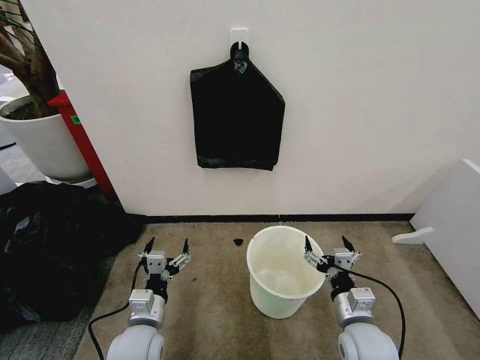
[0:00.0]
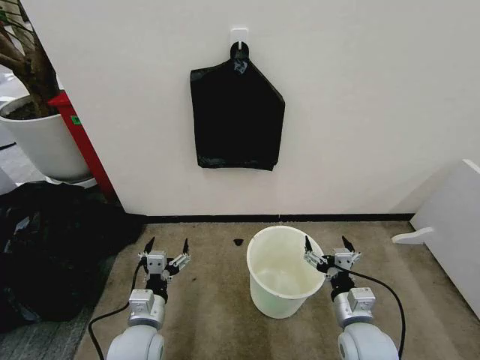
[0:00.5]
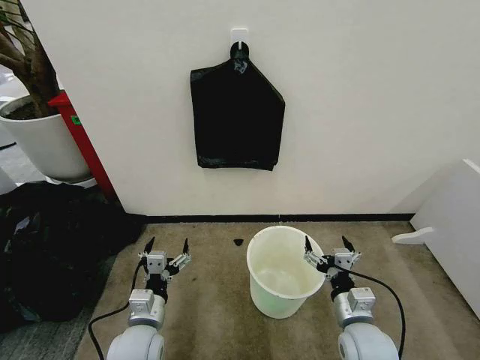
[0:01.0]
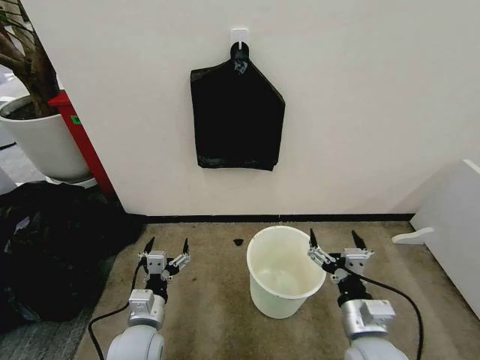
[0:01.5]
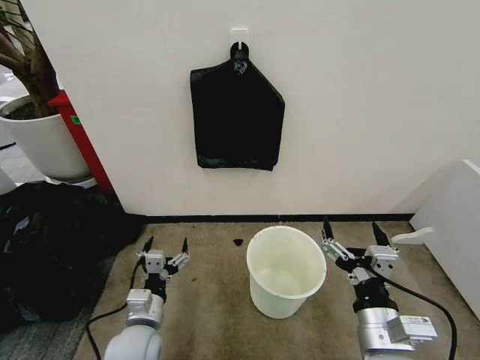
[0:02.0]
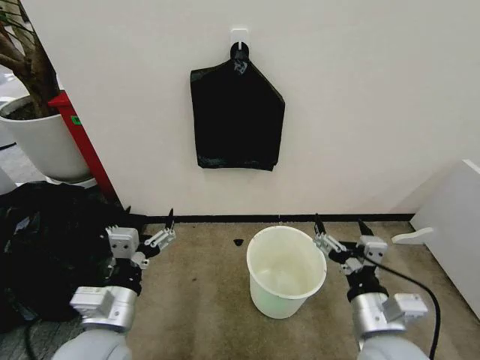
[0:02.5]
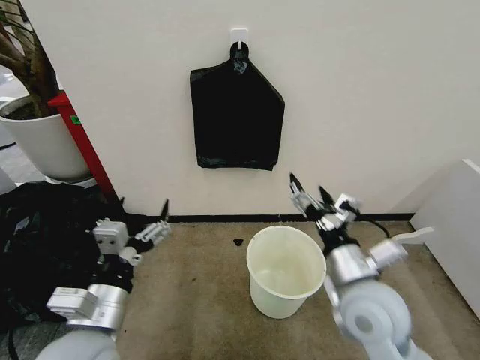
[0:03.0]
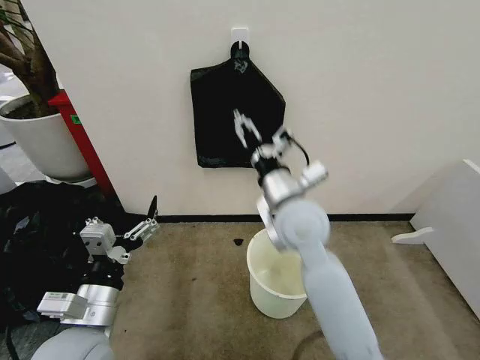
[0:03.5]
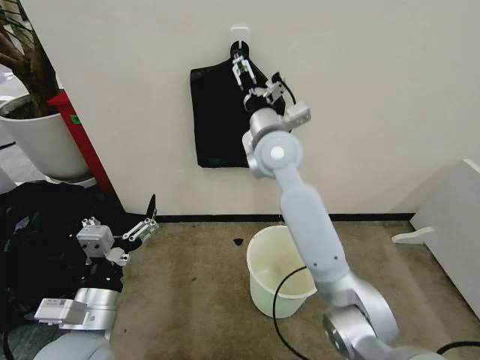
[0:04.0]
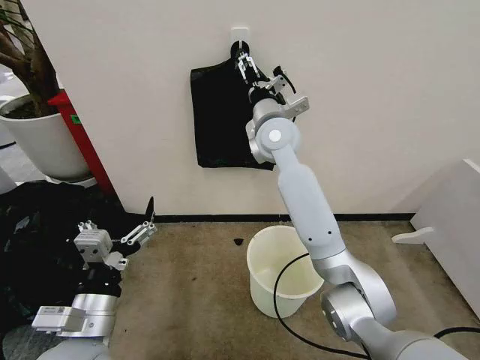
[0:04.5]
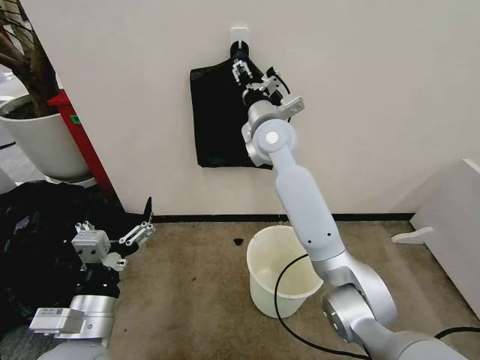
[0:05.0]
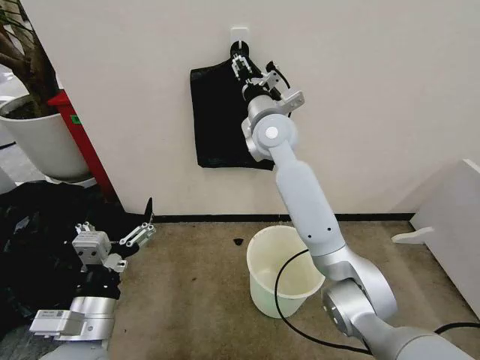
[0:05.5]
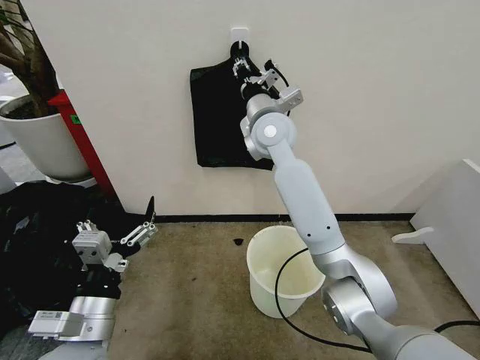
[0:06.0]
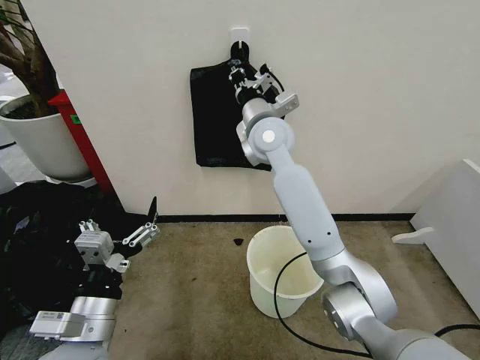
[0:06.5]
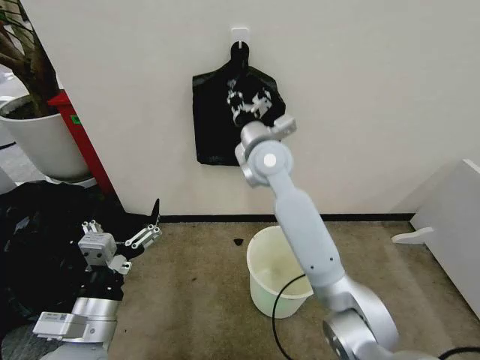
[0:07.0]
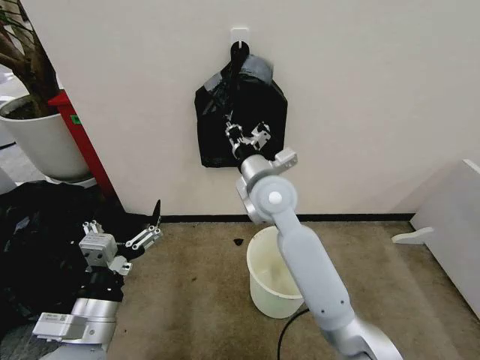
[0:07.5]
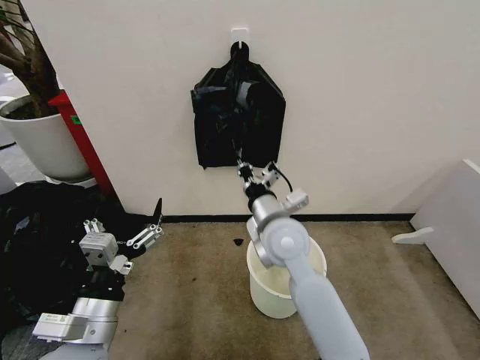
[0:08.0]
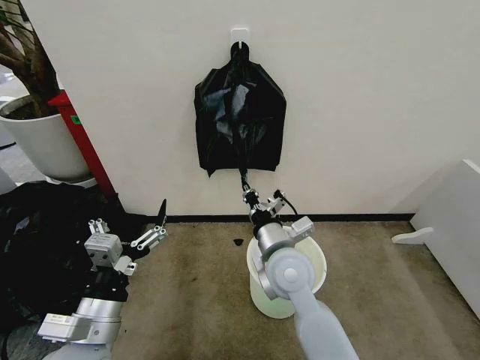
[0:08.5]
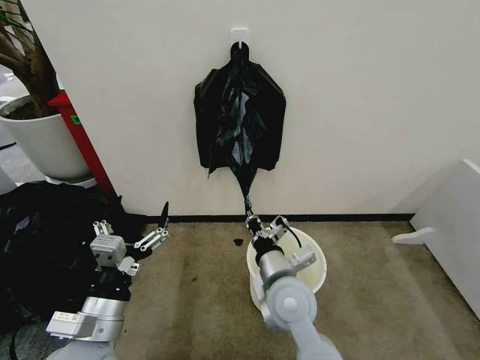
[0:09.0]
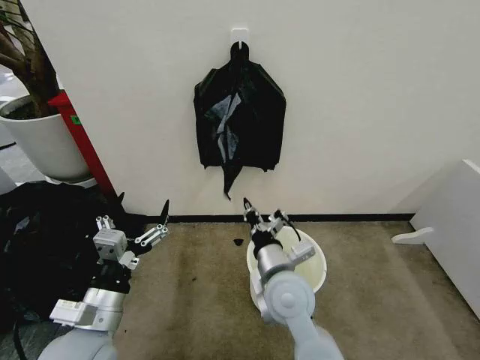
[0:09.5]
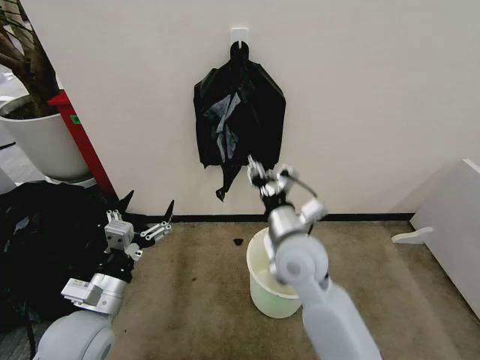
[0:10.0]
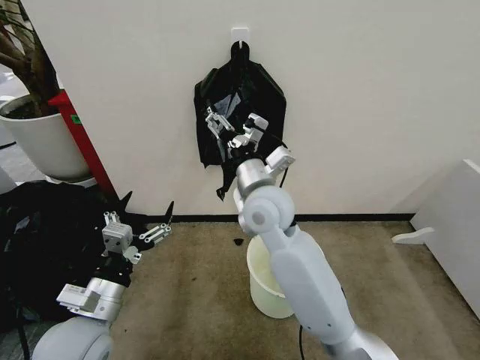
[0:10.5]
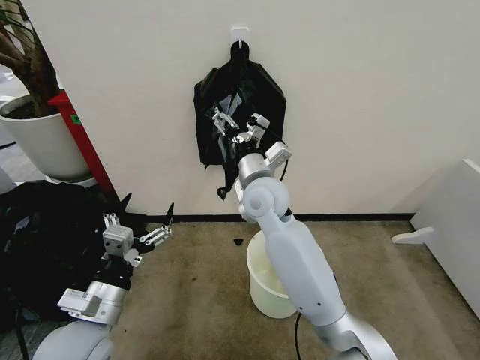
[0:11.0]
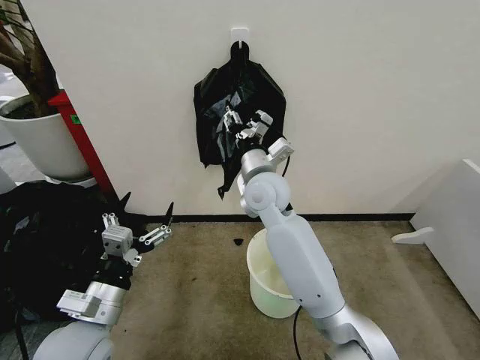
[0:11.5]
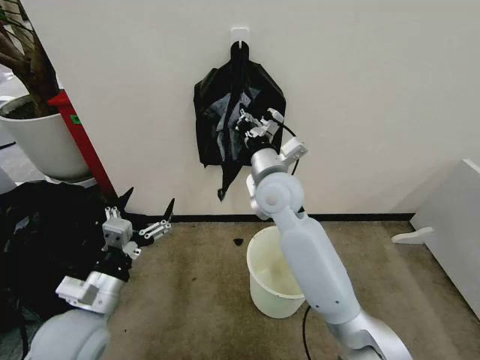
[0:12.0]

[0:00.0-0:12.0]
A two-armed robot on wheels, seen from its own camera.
Task of the whole recording: Place the garbage bag over the trash bin.
0:02.0 to 0:04.0: The left gripper is displaced upward by about 15 cm. Meanwhile the right gripper shifts some 40 cm forward, upward and to the left.
0:04.0 to 0:06.0: The right gripper changes place by some 5 cm, and closes up.
0:06.0 to 0:08.0: The right gripper moves backward and downward, some 20 cm.
0:08.0 to 0:10.0: The left gripper moves forward, some 5 cm, while the right gripper opens up.
0:10.0 to 0:12.0: The right gripper is displaced forward and upward by approximately 15 cm, and closes up.

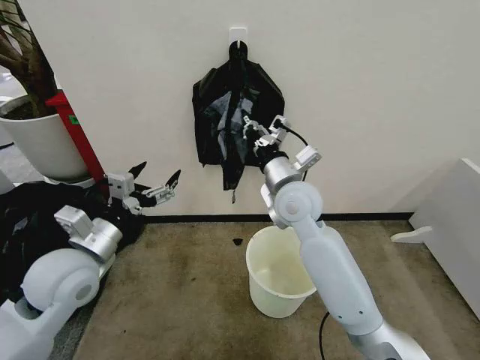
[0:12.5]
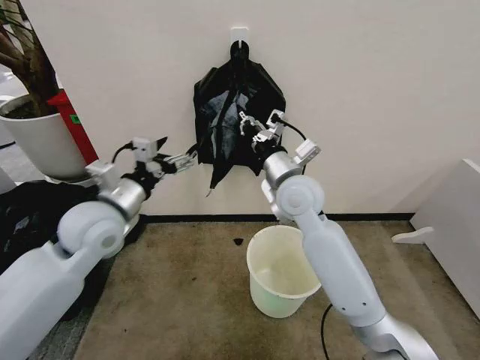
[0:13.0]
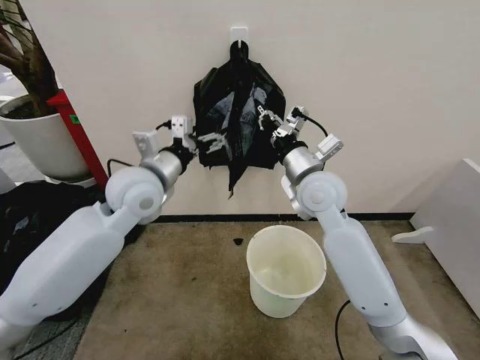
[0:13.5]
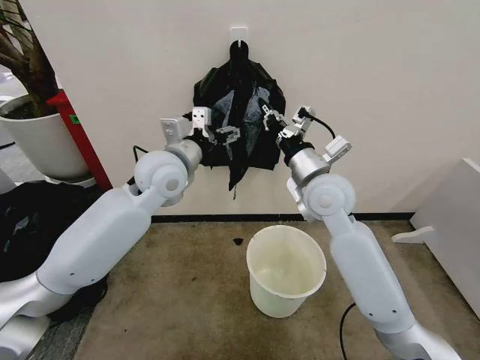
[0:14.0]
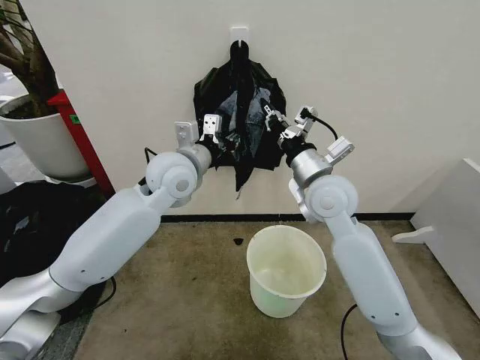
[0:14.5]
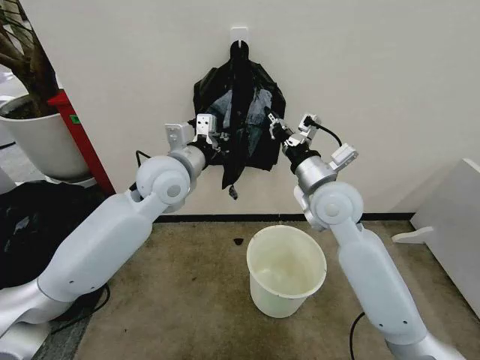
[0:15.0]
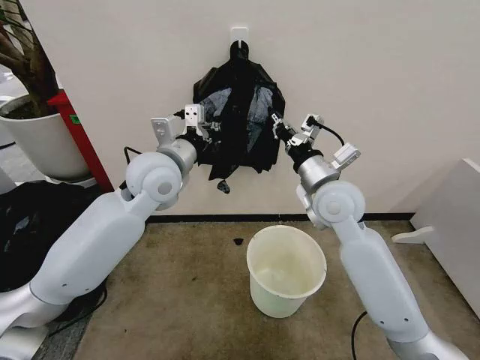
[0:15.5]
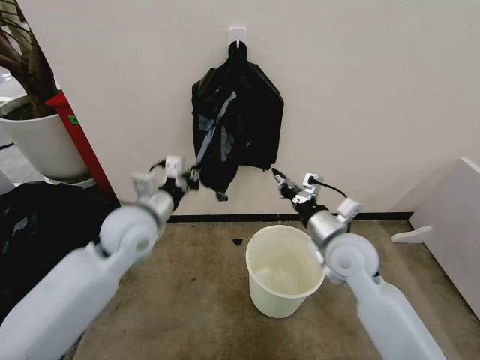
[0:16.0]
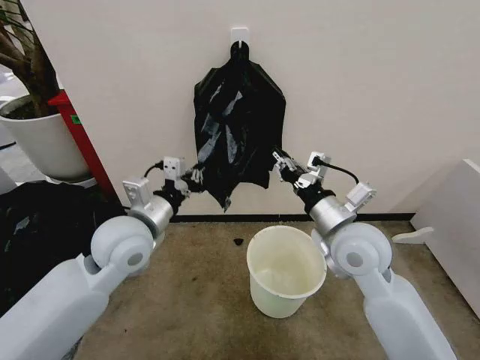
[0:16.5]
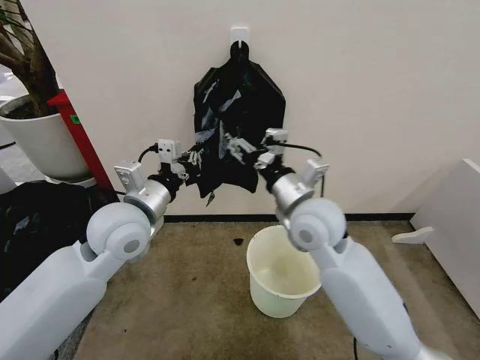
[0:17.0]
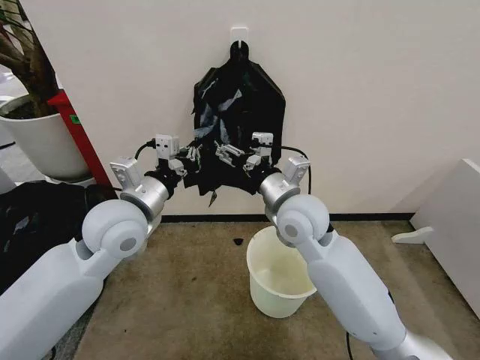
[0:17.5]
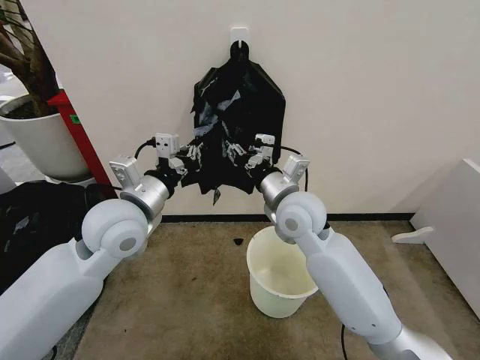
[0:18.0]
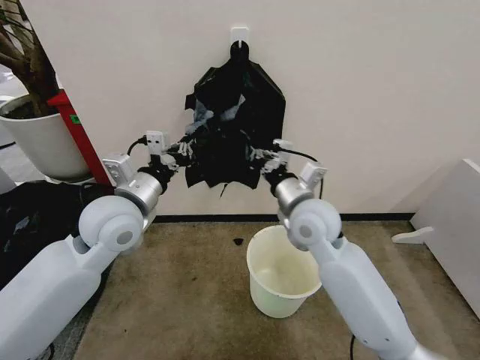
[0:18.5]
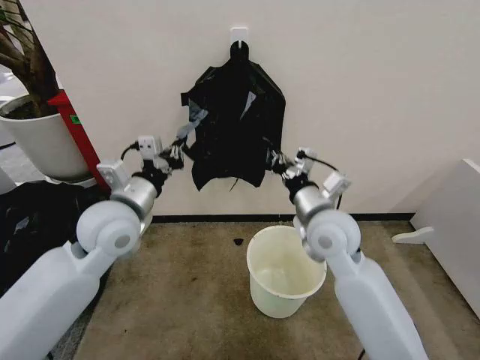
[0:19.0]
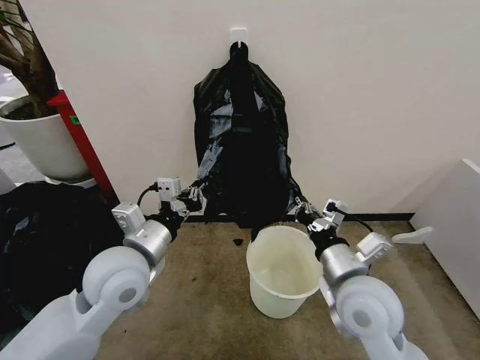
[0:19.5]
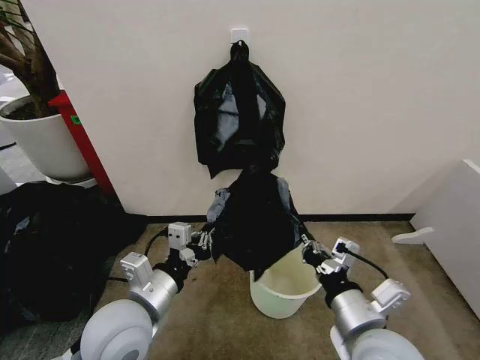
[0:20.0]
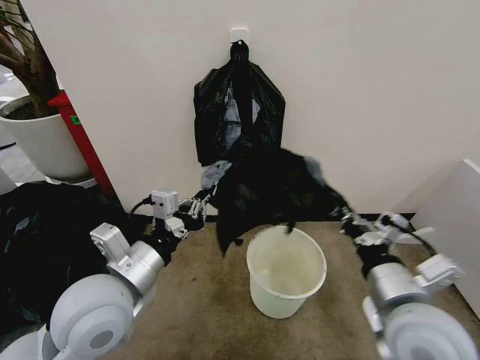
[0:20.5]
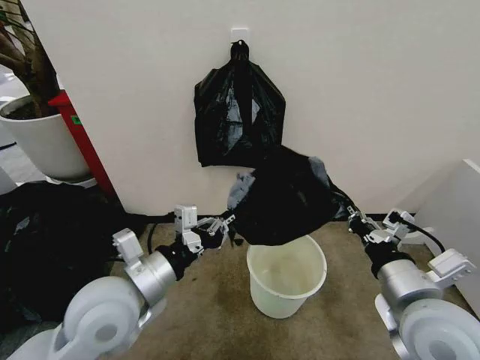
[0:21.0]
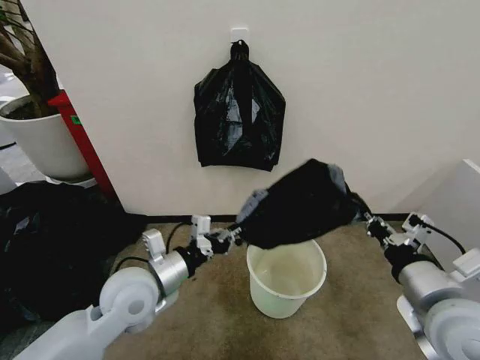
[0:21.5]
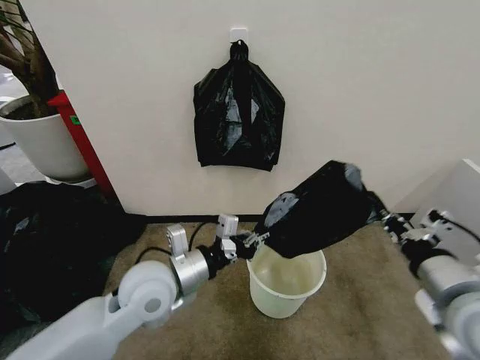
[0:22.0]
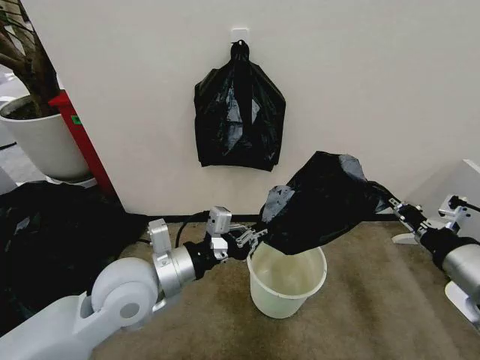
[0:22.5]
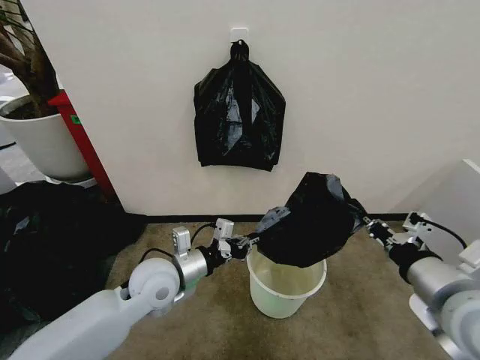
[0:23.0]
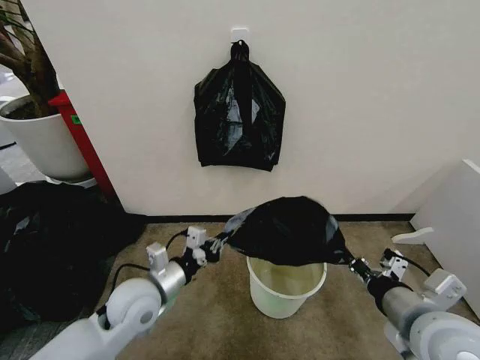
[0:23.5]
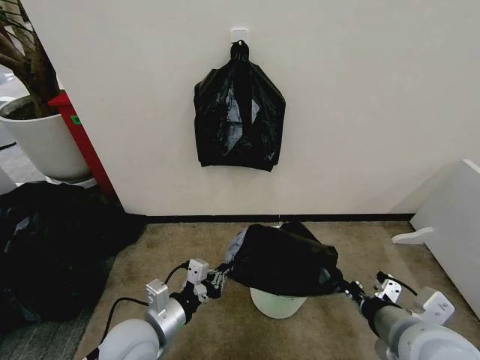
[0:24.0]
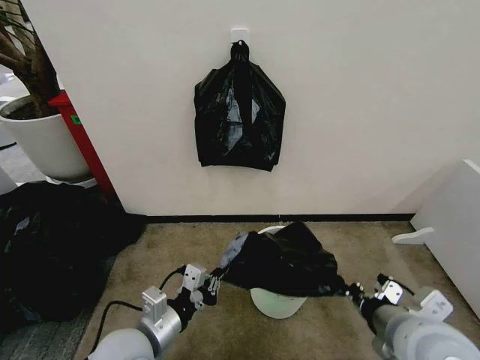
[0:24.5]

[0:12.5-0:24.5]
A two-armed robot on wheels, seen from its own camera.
Task of the whole recording: Place the garbage bag over the trash bin.
0:12.5 to 0:14.5: The left gripper moves forward, to the right and upward, roughly 25 cm, and closes up, while the right gripper is displaced to the right by roughly 5 cm.
0:14.5 to 0:16.5: The left gripper goes about 15 cm backward, to the left and downward, and closes up. The right gripper heads backward, covering about 10 cm.
0:16.5 to 0:18.5: The right gripper moves to the left and forward, approximately 10 cm, and opens, then closes once more.
0:18.5 to 0:20.5: The left gripper is displaced backward by approximately 15 cm; the right gripper travels backward and to the right by some 20 cm.
0:20.5 to 0:22.5: The right gripper goes about 15 cm to the right and upward; the left gripper travels downward and back again, roughly 10 cm each way.
0:22.5 to 0:24.5: The right gripper is displaced to the left and downward by roughly 10 cm. Meanwhile the left gripper travels downward and backward by roughly 15 cm.

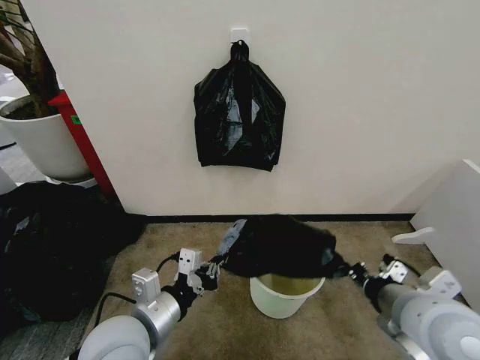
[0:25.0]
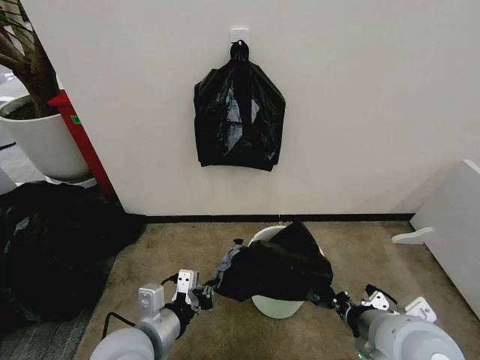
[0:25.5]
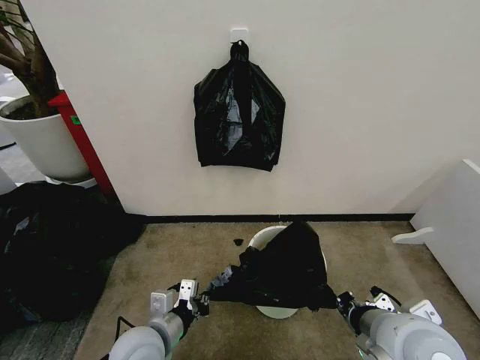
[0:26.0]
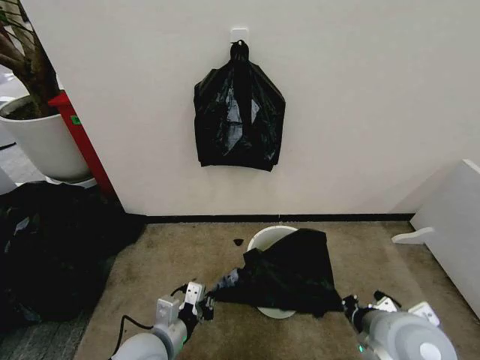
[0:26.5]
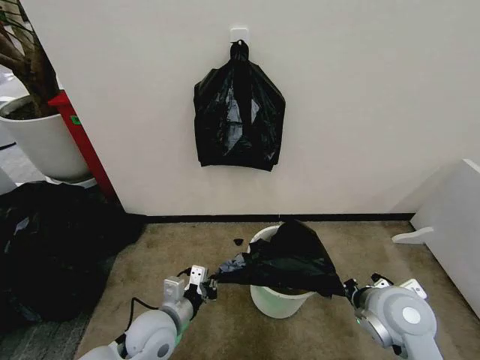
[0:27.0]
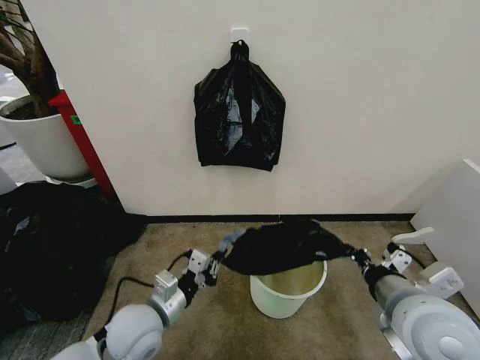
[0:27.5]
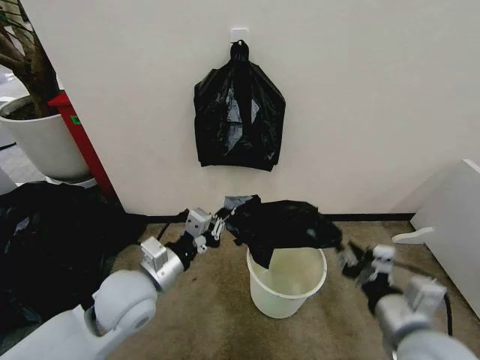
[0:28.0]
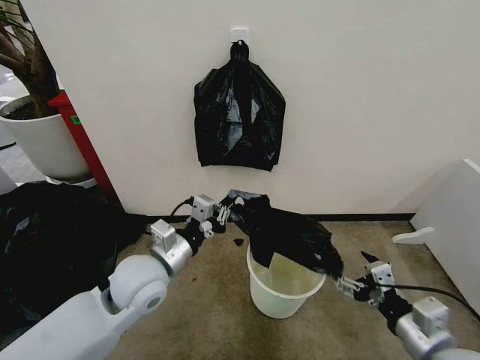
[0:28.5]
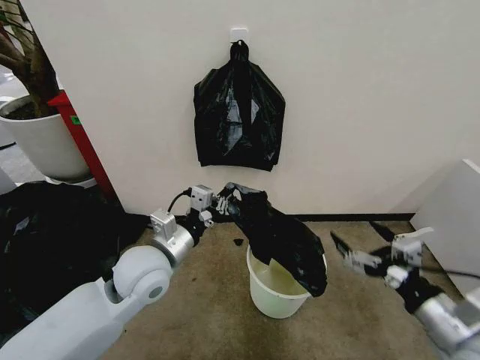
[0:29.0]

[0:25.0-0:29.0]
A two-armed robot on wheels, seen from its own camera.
Task of the whole recording: Place the garbage bag over the trash bin.
0:25.0 to 0:27.0: The left gripper travels downward by approximately 15 cm, while the right gripper is displaced downward by roughly 10 cm.
0:27.0 to 0:29.0: The right gripper heads to the right and backward, covering approximately 15 cm, and opens up; the left gripper moves upward and forward, roughly 15 cm.
